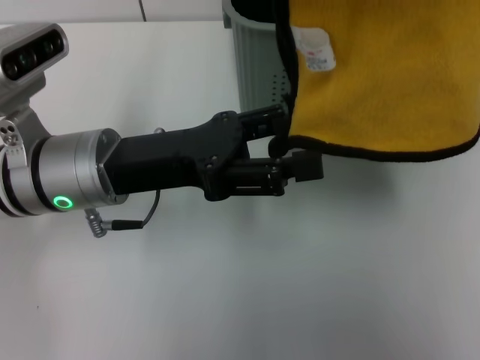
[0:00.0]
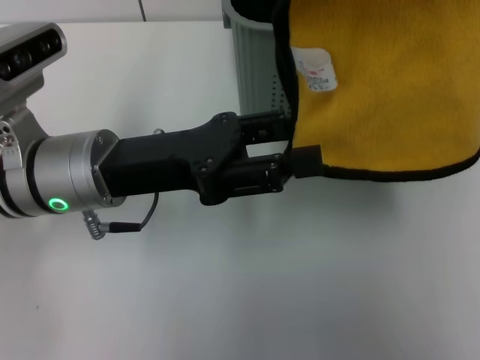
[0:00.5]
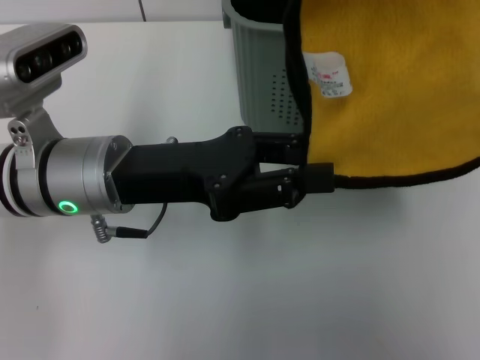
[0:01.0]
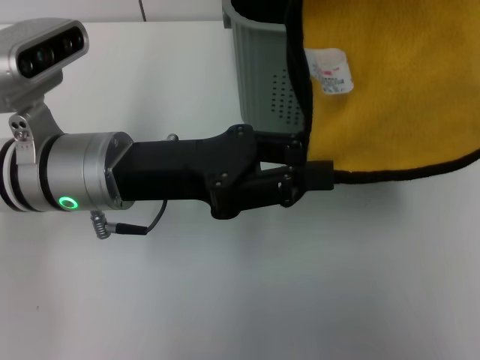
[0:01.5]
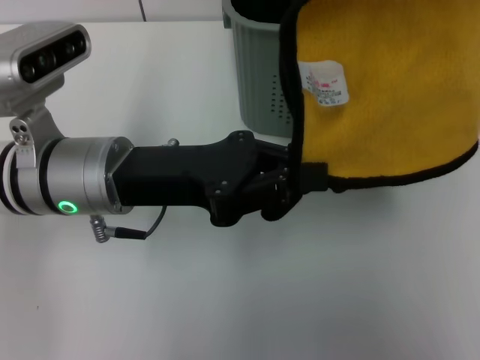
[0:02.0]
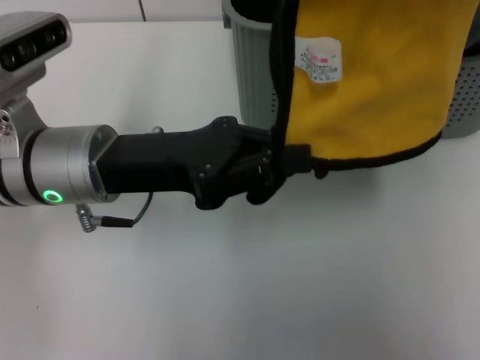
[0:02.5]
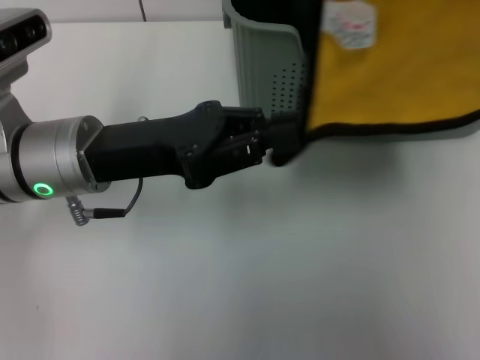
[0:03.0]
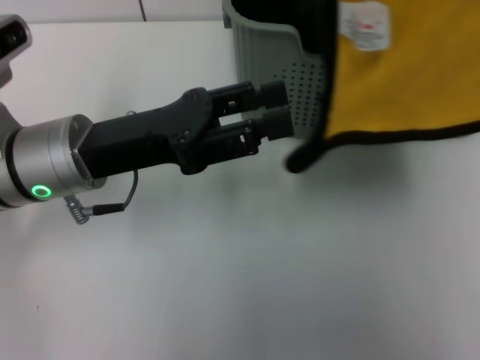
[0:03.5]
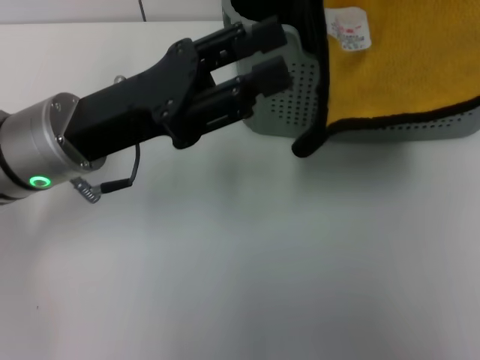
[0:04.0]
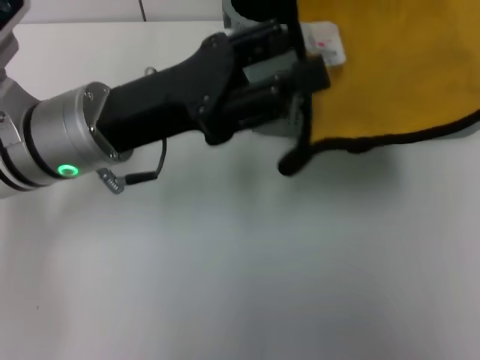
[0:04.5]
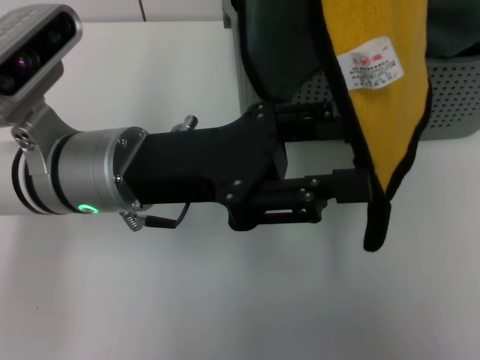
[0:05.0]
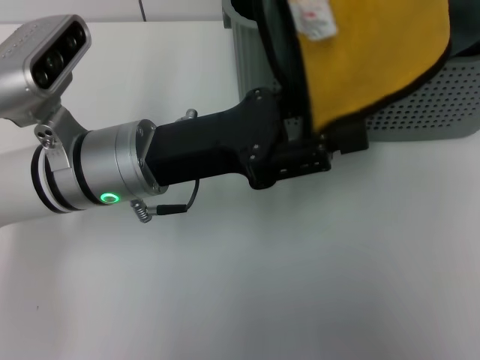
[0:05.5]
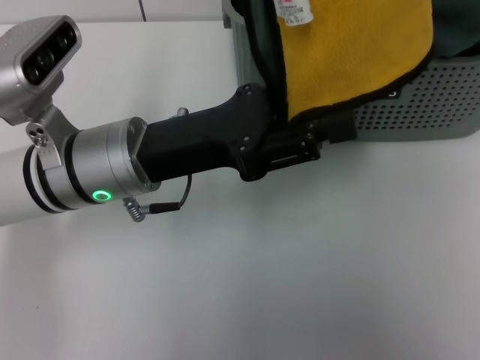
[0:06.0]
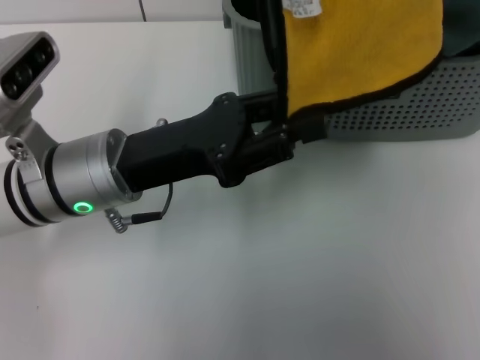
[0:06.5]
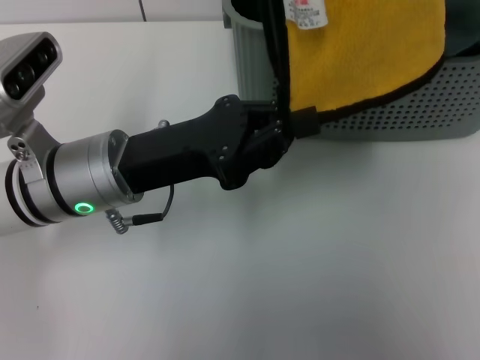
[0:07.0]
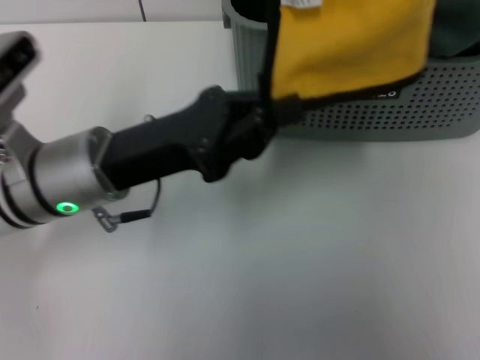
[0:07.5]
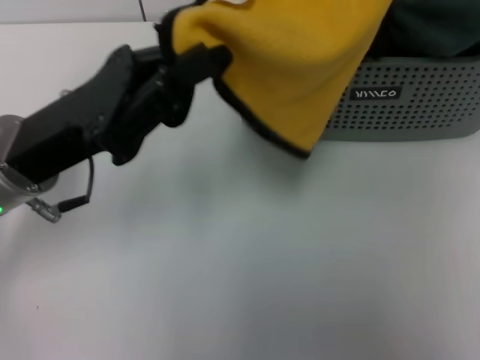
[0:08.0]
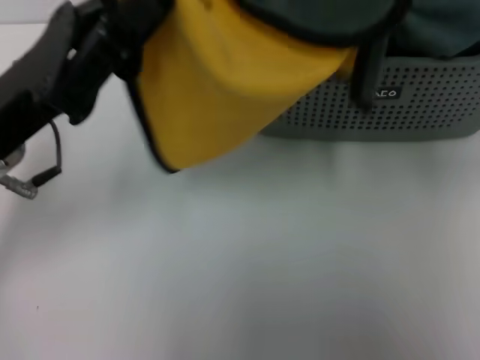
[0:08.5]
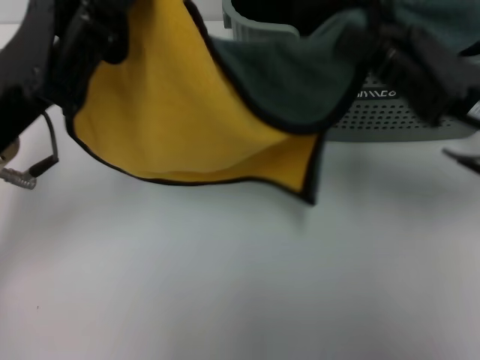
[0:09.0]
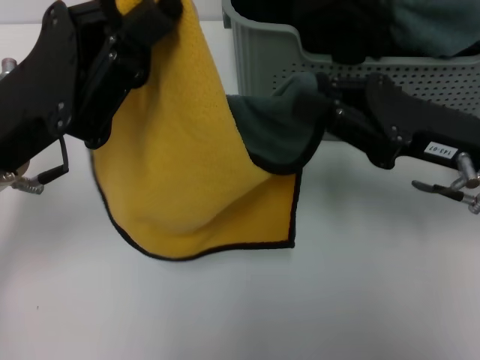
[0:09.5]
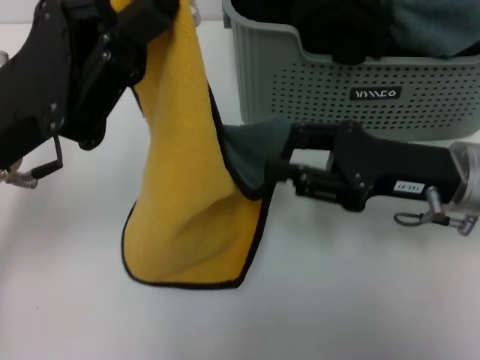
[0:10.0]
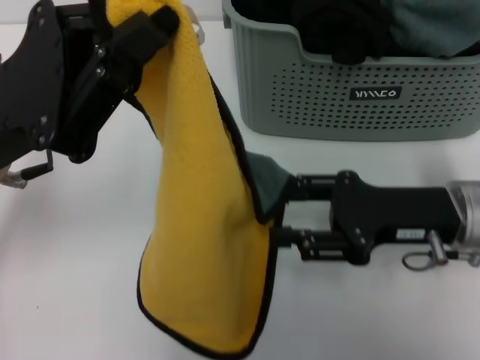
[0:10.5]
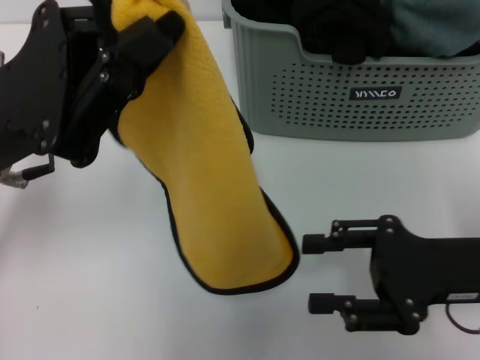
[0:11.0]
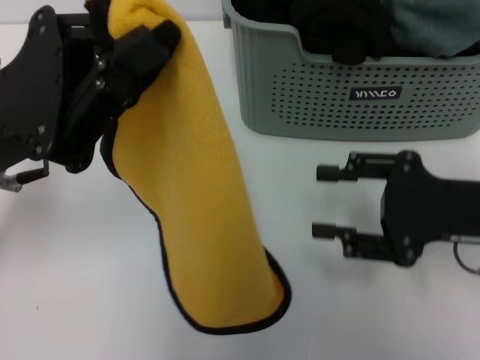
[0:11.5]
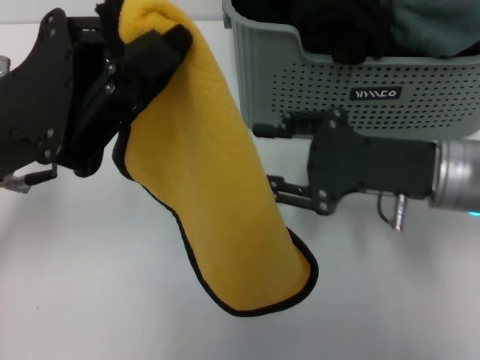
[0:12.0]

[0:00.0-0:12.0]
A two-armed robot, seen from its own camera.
Task of the whole recording: pick up the towel from the storage box and lay it flat on the table.
Step, 0:00.0 to 0:07.0: Spread the towel flat with the right gripper.
0:00.0 to 0:02.0: The left gripper closes up.
0:02.0 to 0:04.0: The left gripper opens its fingers.
0:06.0 to 0:08.0: The right gripper goes roughly 5 cm downward, while the left gripper travels to the left by roughly 5 cm, and closes up.
0:08.0 to 0:10.0: The right gripper travels downward by approximately 15 cm.

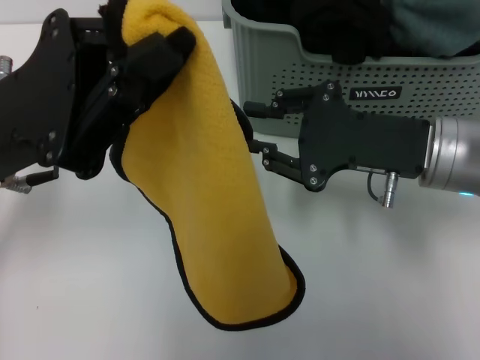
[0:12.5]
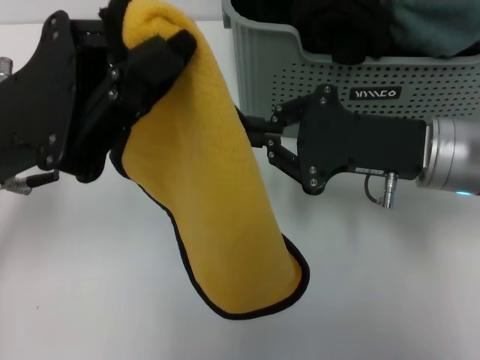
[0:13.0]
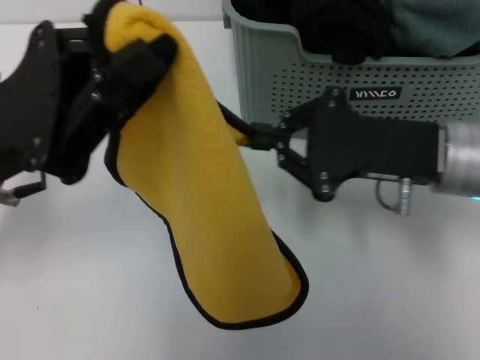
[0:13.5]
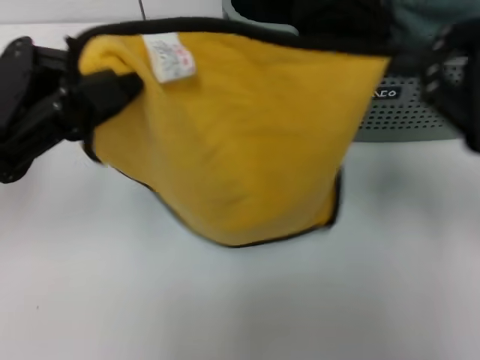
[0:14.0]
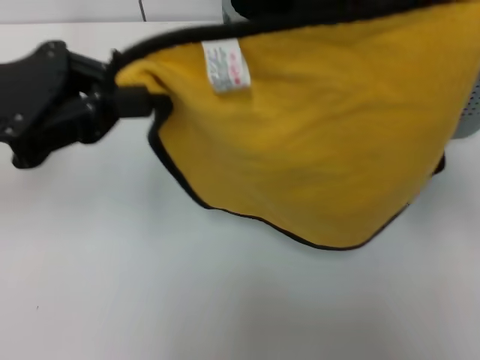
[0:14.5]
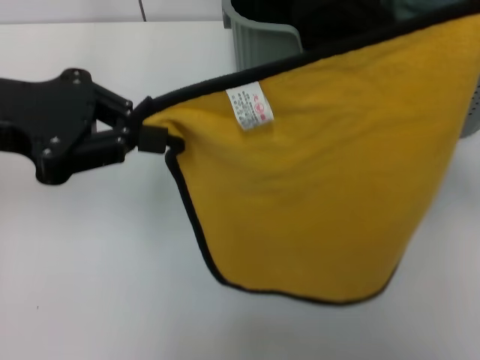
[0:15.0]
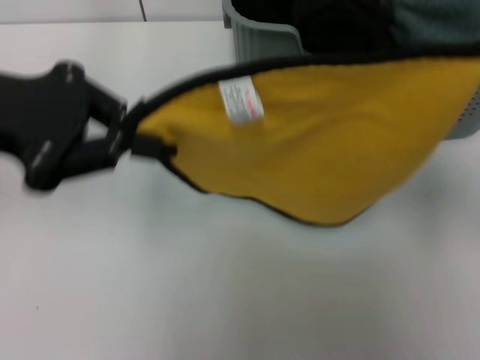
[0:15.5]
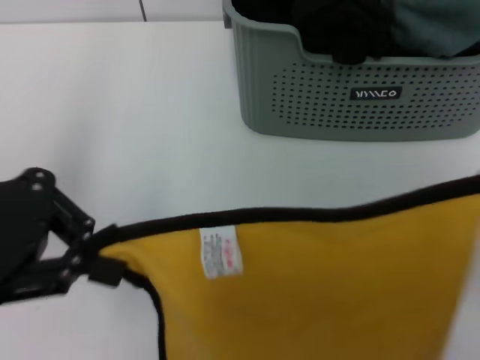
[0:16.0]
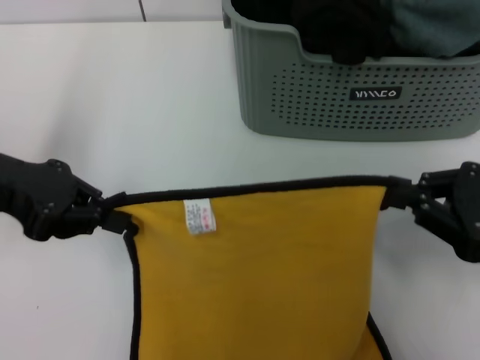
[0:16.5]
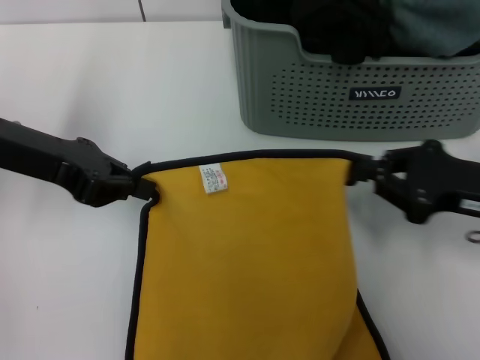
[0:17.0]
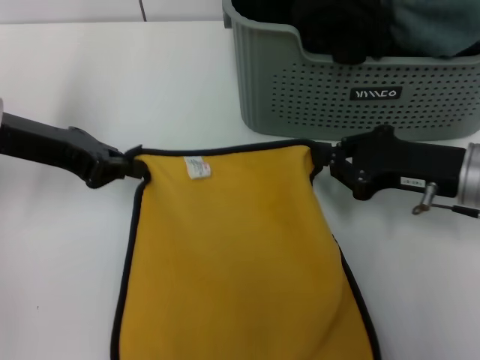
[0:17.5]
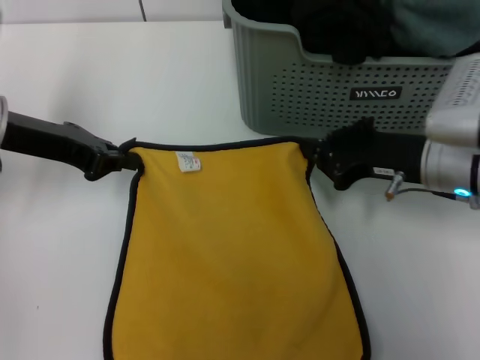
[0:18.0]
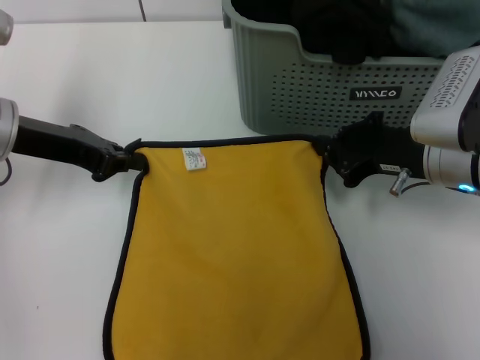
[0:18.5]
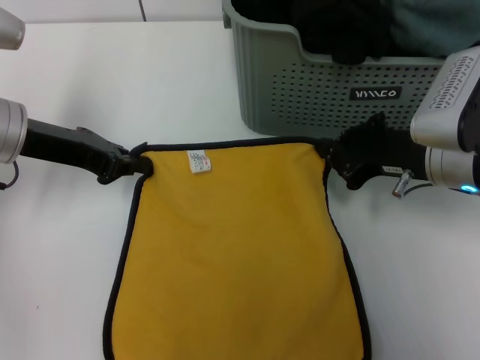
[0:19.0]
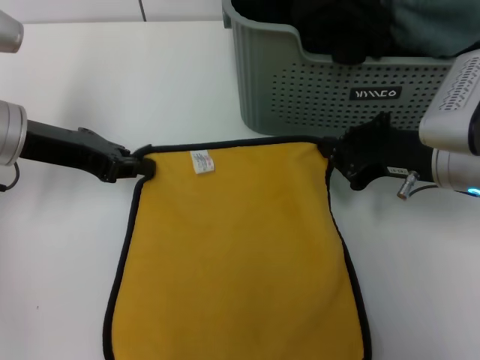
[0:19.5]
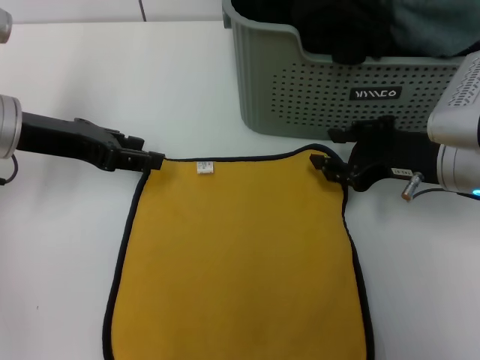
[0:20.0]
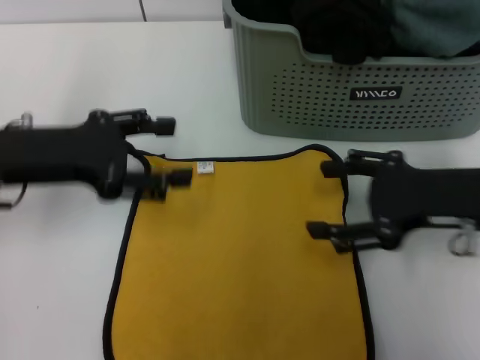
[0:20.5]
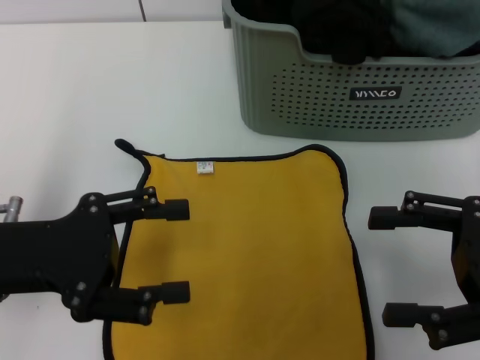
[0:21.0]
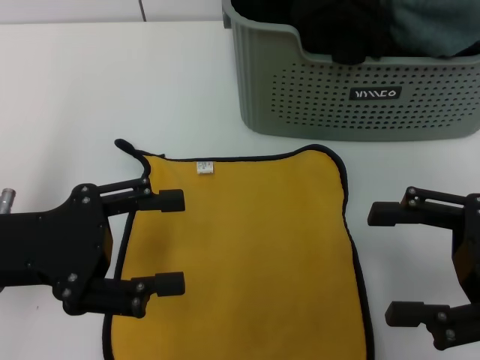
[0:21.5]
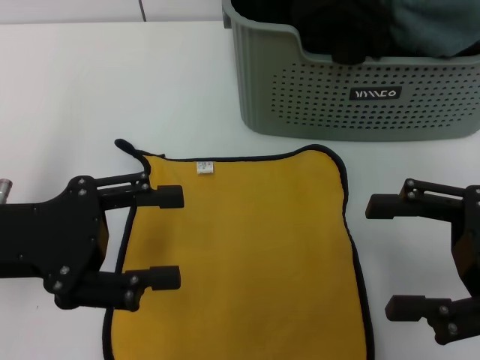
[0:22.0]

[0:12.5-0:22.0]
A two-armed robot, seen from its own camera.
Task of the whole recording: pick up the towel from the storage box and lay it flat on the table.
Step, 0:12.5 to 0:19.5: Spread the towel flat with the left gripper.
0:12.5 to 0:14.5: The right gripper is displaced upward, to the right and backward by approximately 20 cm, and closes; the left gripper travels to the left by some 5 cm.
0:14.5 to 0:16.5: The right gripper is displaced downward by approximately 15 cm.
0:16.5 to 0:18.0: The left gripper ends up approximately 5 cm from where it was. Meanwhile the right gripper moves forward and to the left, about 15 cm.
0:18.0 to 0:20.0: The left gripper opens its fingers.
0:20.0 to 0:22.0: The left gripper shifts some 10 cm backward, and opens up. The right gripper is displaced backward and to the right by some 10 cm, and opens.
